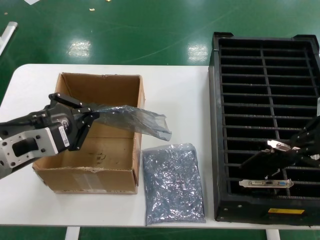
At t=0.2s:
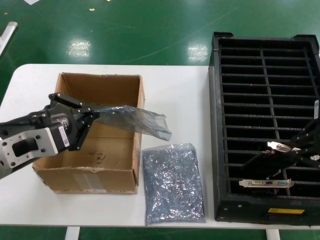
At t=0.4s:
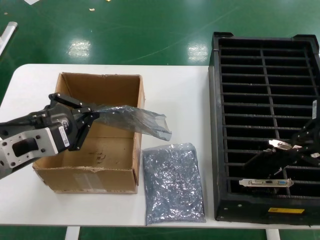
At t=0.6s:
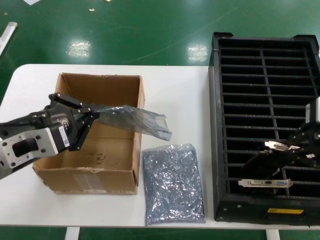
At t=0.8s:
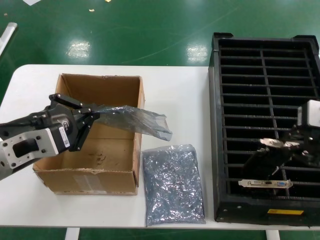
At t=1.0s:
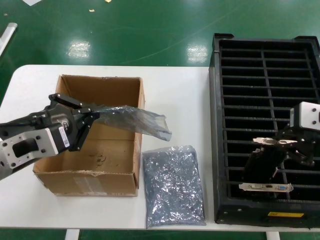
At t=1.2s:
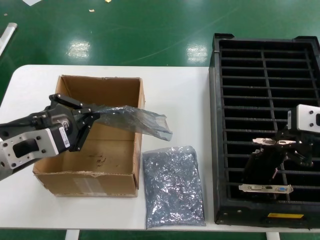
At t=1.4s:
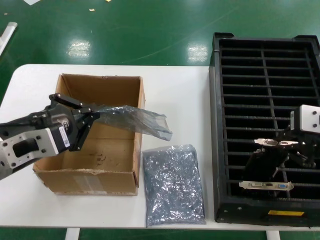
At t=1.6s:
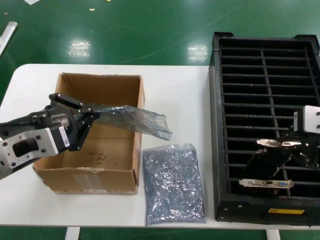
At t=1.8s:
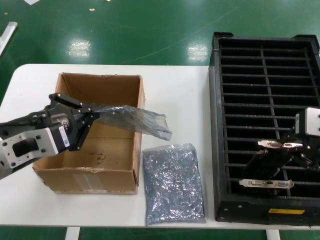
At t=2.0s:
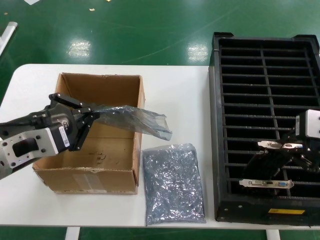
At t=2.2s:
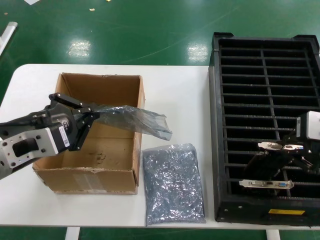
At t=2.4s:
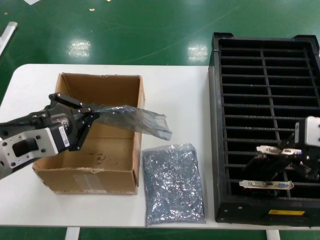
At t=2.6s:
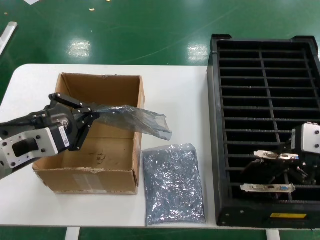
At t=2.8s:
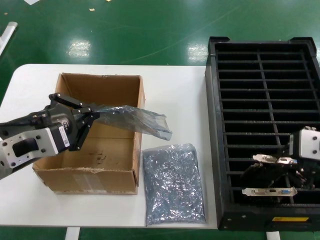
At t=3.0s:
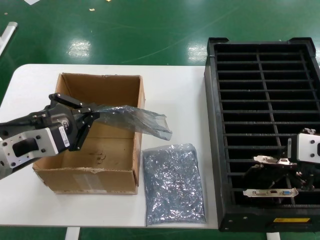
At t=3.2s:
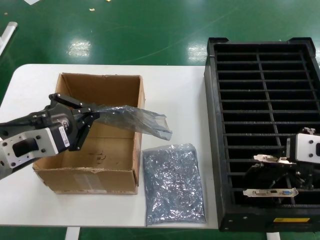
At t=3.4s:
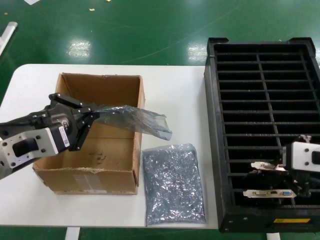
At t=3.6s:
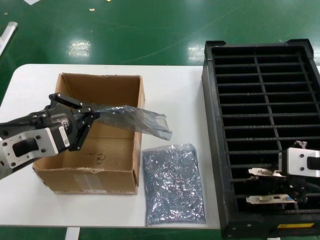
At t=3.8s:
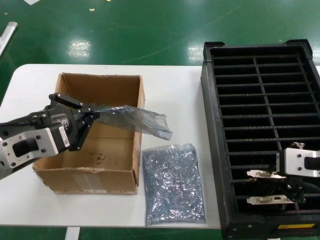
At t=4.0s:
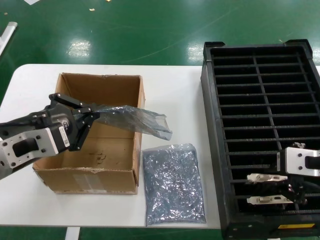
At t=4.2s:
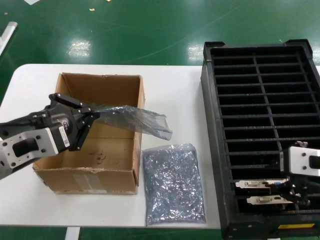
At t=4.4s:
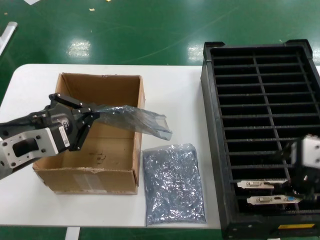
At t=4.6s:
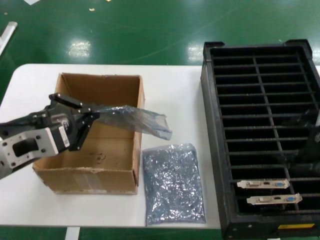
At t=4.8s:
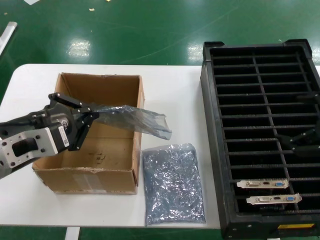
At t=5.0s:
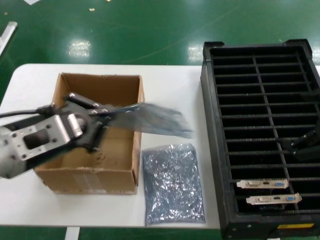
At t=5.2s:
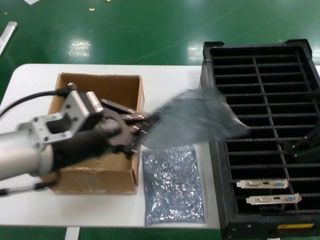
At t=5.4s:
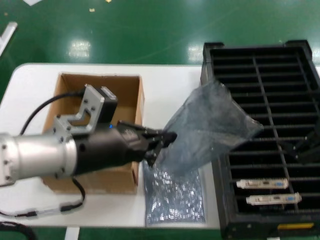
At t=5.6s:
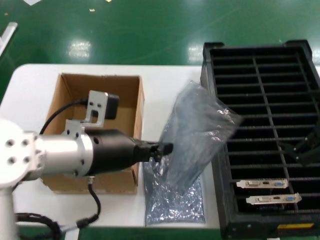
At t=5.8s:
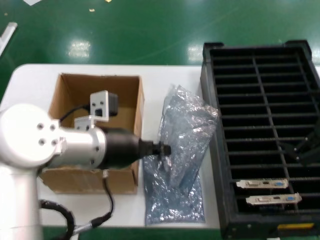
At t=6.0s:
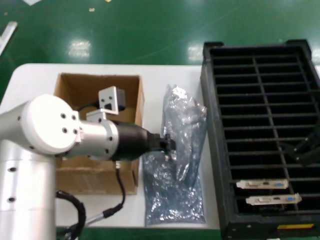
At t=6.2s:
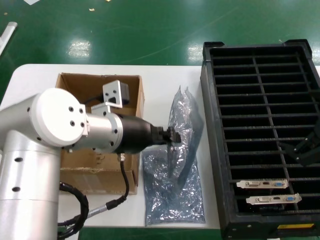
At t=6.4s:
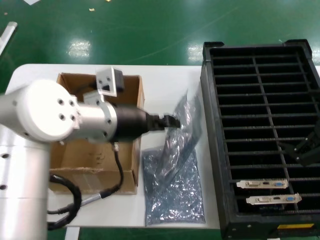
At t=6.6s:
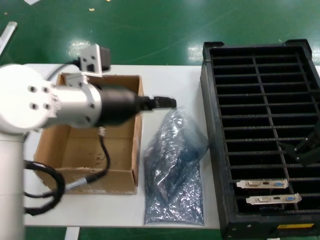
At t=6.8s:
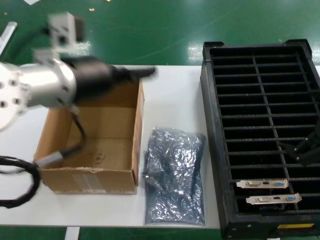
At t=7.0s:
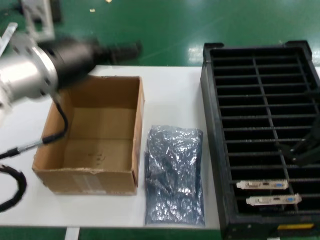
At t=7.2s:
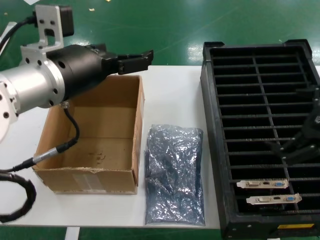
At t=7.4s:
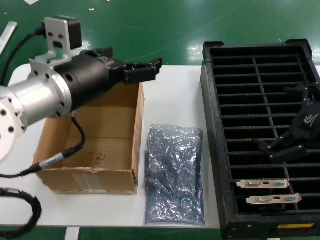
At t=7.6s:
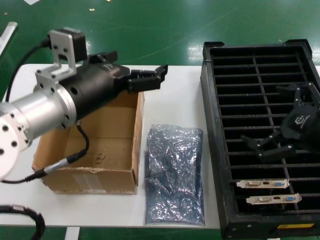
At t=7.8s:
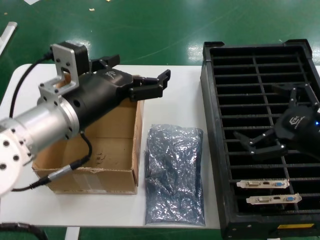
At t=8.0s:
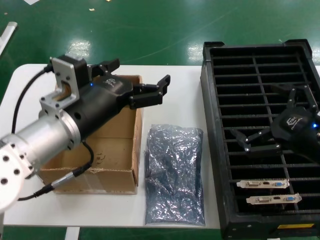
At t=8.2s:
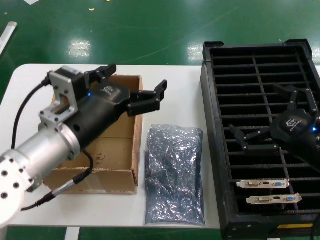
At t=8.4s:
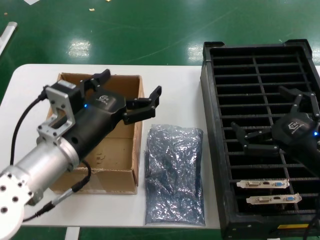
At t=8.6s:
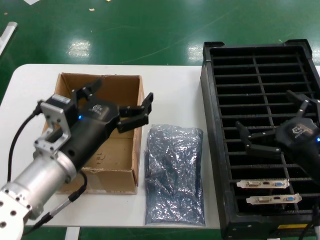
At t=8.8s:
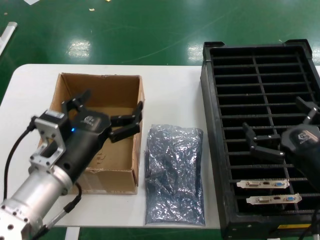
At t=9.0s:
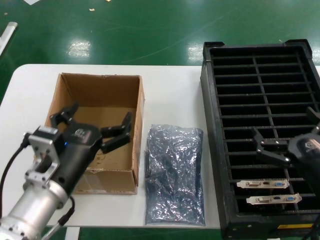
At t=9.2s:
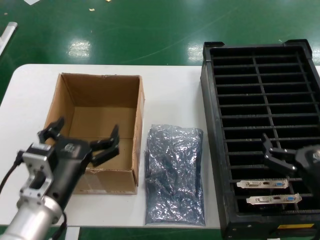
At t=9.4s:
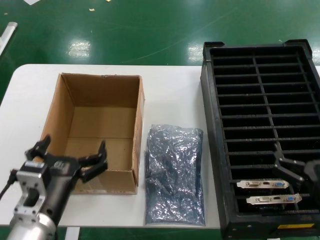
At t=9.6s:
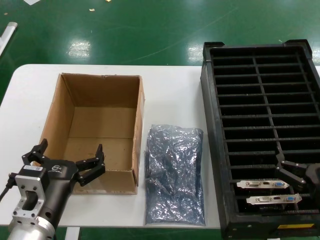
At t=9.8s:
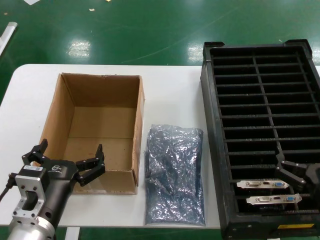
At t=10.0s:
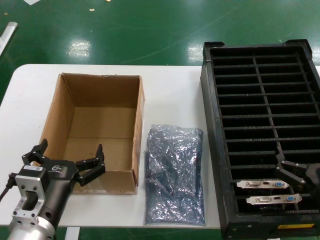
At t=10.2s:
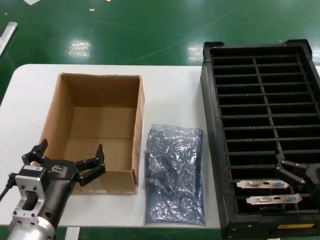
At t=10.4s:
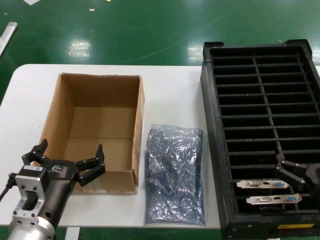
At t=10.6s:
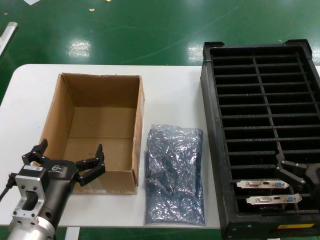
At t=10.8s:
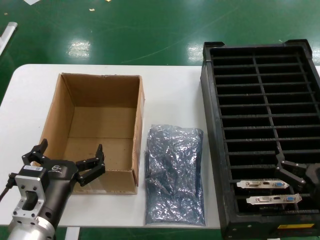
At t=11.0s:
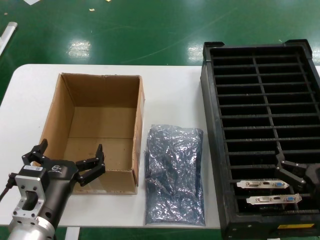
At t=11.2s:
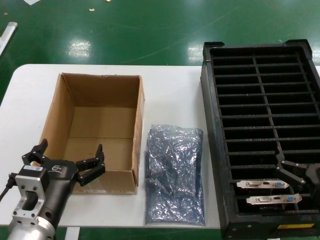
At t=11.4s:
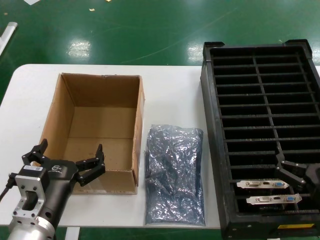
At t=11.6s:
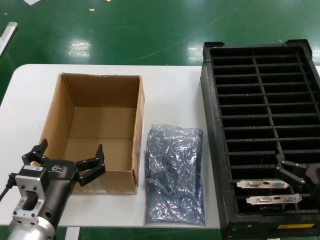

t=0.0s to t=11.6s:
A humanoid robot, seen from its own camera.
Task of the whole recording: take out graphics card from box remove packaging put into black container.
Step, t=0.0s to t=4.6s: Place the hard disk in the hard disk enclosure.
Step, t=4.8s to t=9.0s: Place the down the bag.
t=0.0s to t=1.4s: There are only small adjustments of the hands.
t=1.4s to t=2.8s: The hands move only a little.
t=2.8s to t=4.4s: The hands stay close to where they were, moving slightly.
t=4.4s to t=5.8s: The left hand goes roughly 15 cm to the right and forward, while the right hand goes roughly 5 cm to the right.
t=5.8s to t=7.2s: The left hand goes roughly 10 cm upward.
t=7.2s to t=8.8s: Both hands move downward, about 15 cm.
t=8.8s to t=10.2s: Both hands travel together downward, some 10 cm.
t=10.2s to t=11.6s: Both hands stay put.
